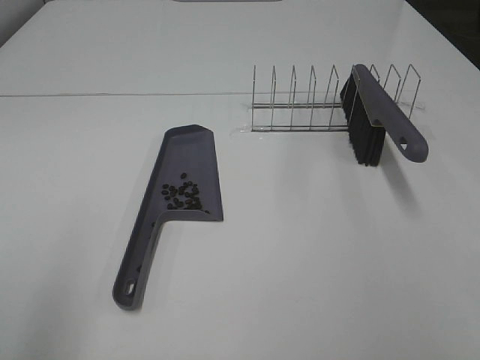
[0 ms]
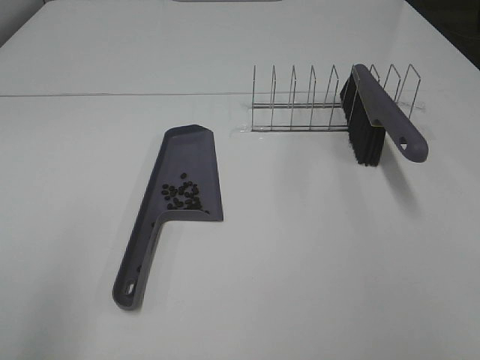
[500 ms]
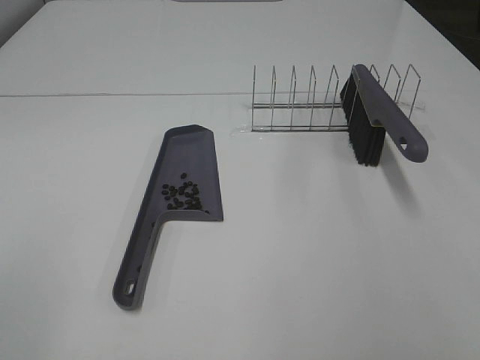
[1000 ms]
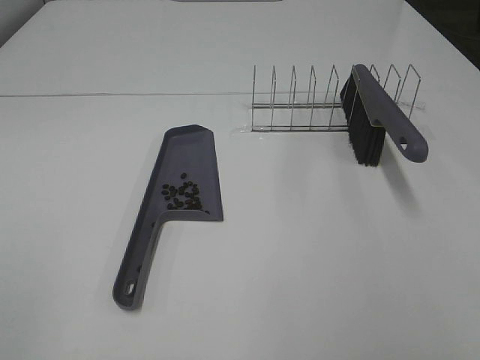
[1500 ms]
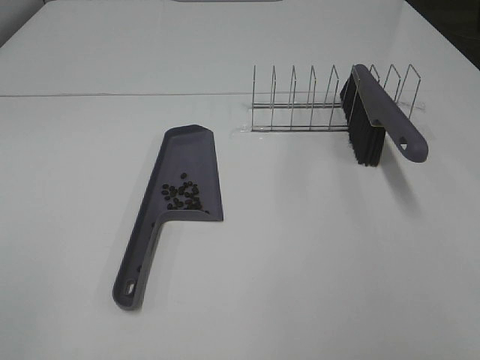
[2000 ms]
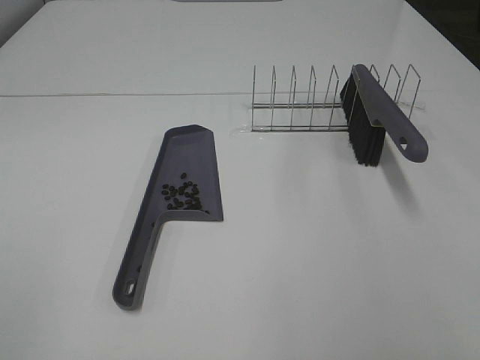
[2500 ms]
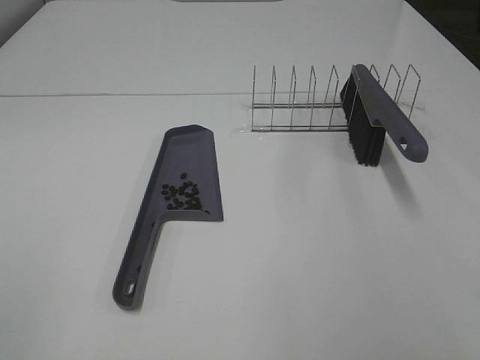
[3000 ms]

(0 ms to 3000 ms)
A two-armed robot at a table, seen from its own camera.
Task of the whole recording: Sweep Coffee Bean.
0 ms - 1500 ms: The left gripper travels backward by roughly 10 cm.
1500 ms - 3000 ms: Both grippers stay about where they are.
